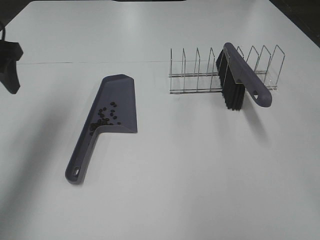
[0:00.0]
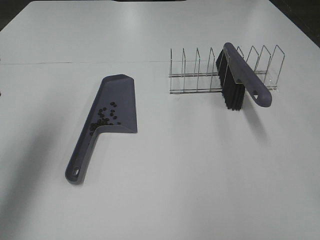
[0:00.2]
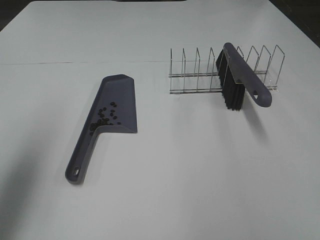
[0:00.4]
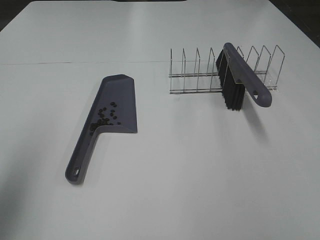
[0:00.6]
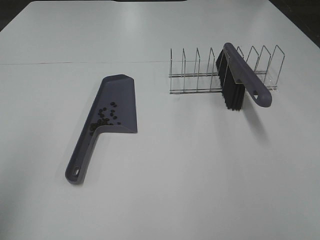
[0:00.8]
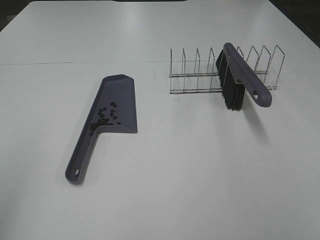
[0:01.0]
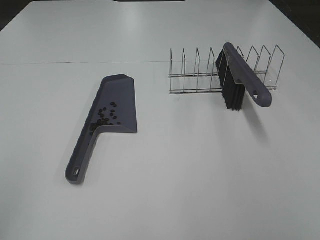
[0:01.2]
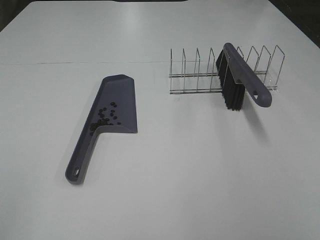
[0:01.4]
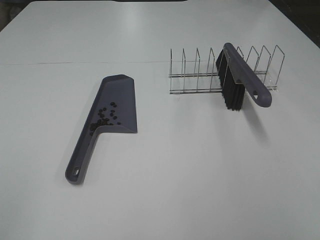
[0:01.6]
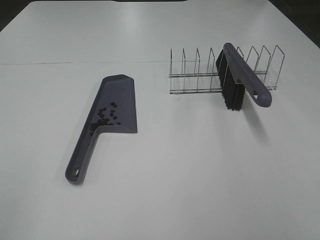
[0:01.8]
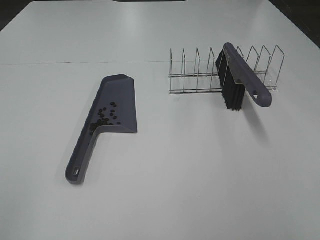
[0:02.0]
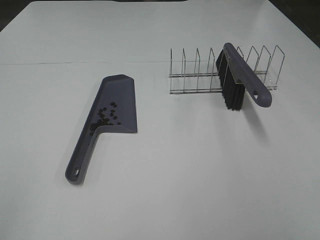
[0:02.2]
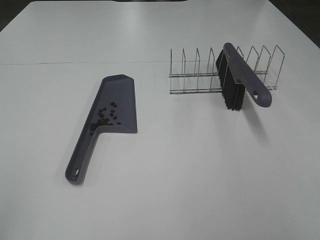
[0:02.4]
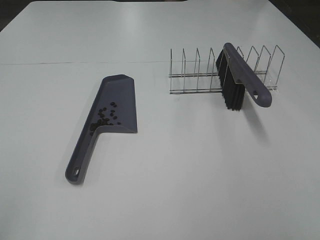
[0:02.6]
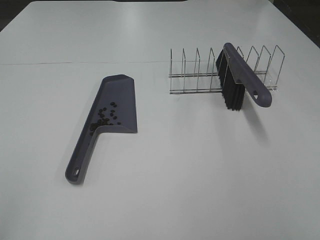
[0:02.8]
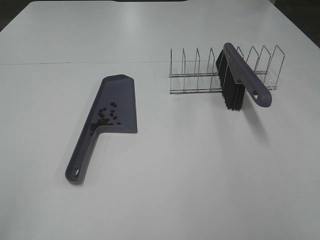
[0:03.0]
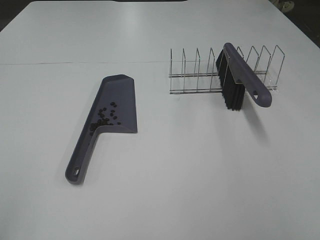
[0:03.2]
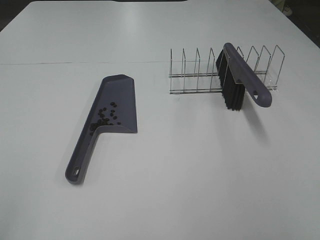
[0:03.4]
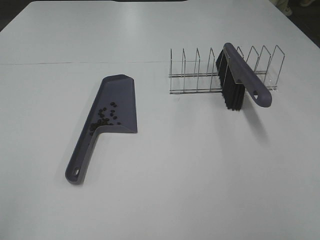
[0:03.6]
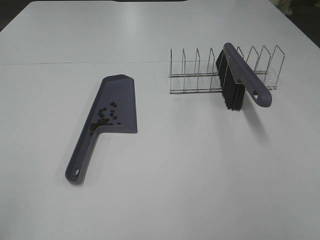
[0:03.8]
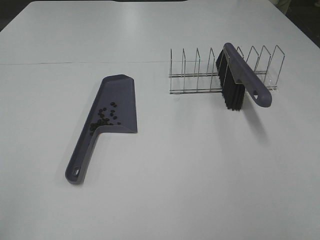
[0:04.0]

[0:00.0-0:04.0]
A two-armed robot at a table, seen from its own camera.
Task of the whole recording: Sweep Coffee Bean.
0:00.0 to 0:01.4: The left gripper is displaced backward by some 35 cm.
0:02.6 to 0:04.0: Both grippers stay about where they are.

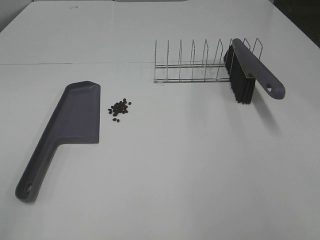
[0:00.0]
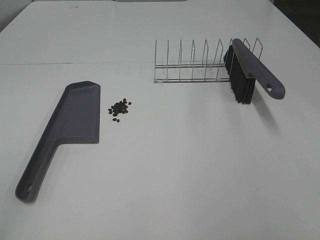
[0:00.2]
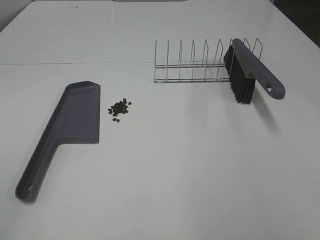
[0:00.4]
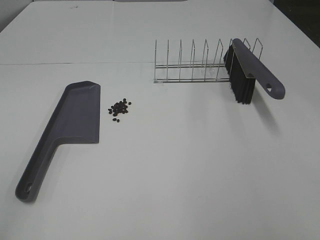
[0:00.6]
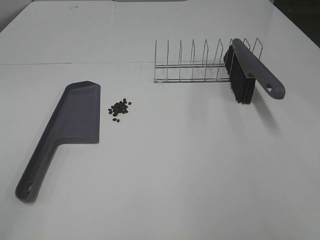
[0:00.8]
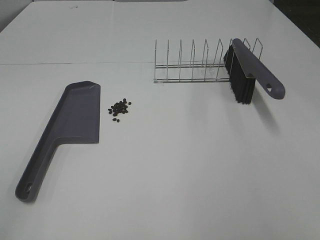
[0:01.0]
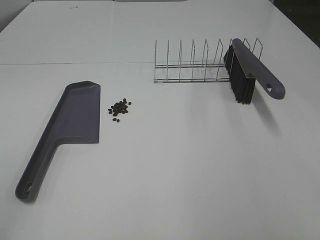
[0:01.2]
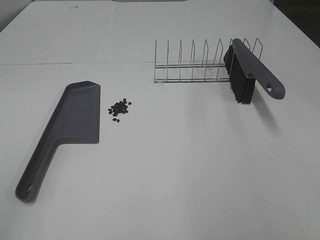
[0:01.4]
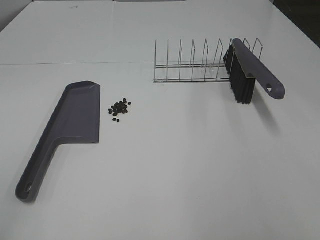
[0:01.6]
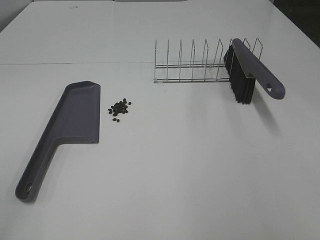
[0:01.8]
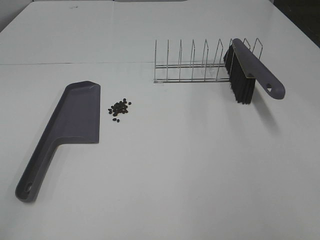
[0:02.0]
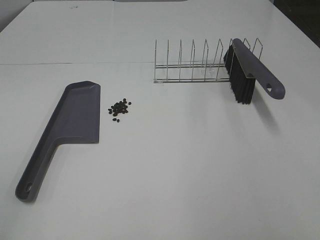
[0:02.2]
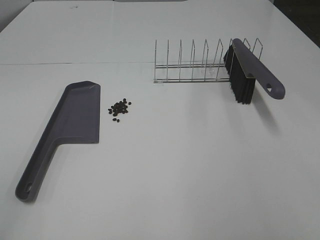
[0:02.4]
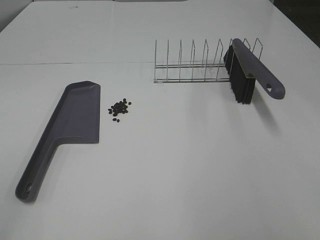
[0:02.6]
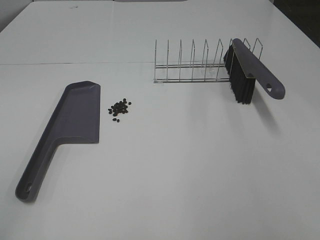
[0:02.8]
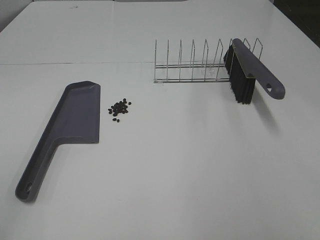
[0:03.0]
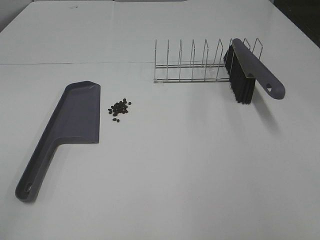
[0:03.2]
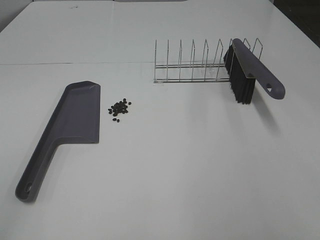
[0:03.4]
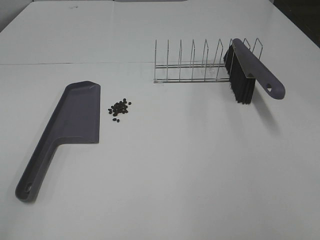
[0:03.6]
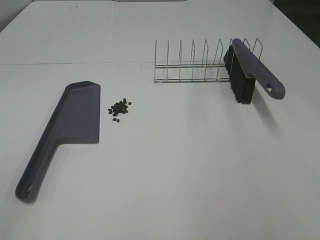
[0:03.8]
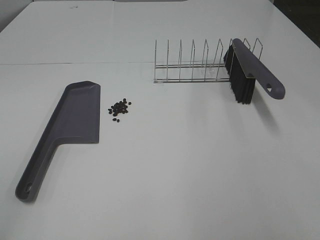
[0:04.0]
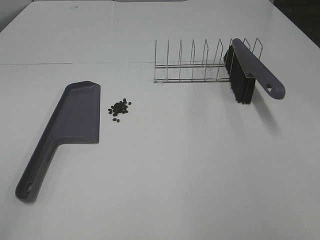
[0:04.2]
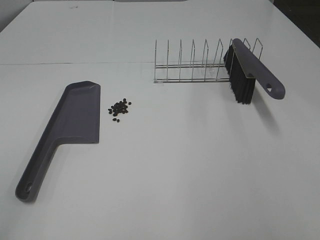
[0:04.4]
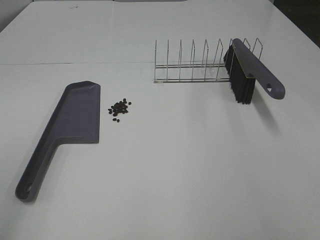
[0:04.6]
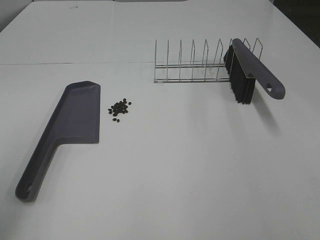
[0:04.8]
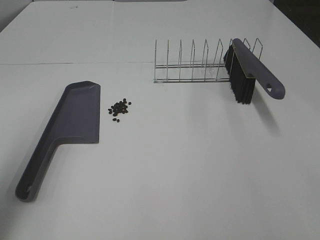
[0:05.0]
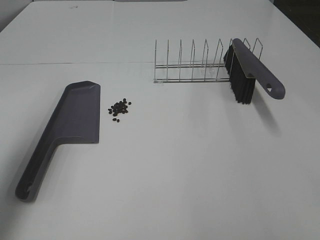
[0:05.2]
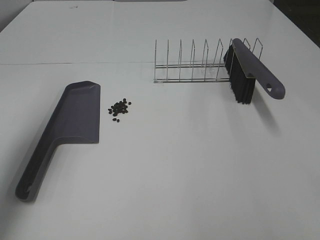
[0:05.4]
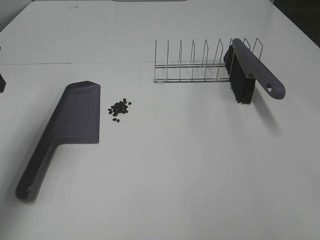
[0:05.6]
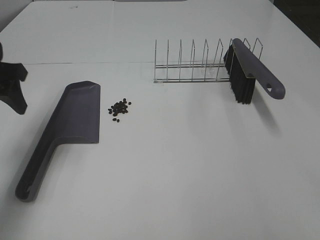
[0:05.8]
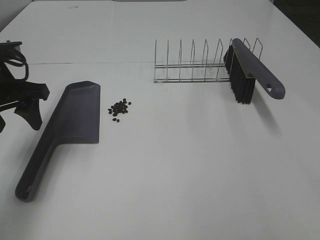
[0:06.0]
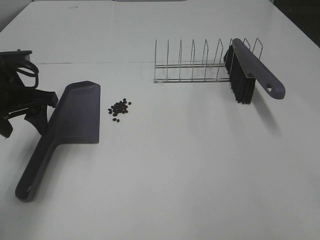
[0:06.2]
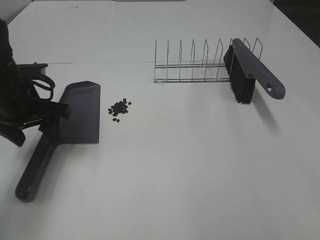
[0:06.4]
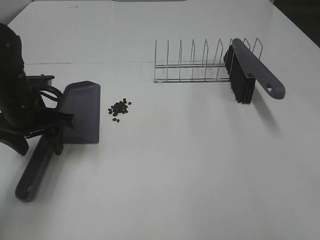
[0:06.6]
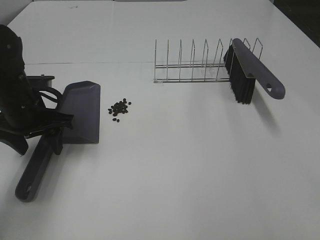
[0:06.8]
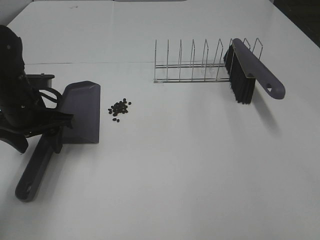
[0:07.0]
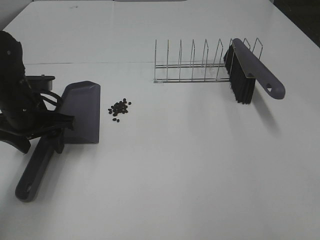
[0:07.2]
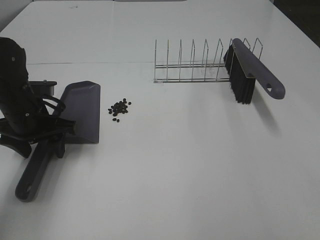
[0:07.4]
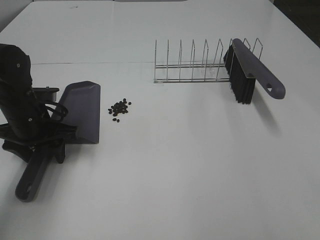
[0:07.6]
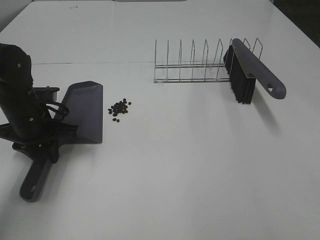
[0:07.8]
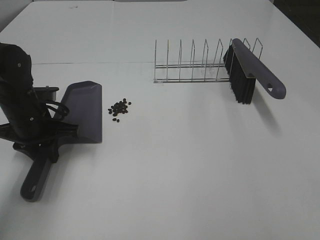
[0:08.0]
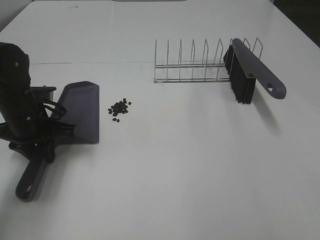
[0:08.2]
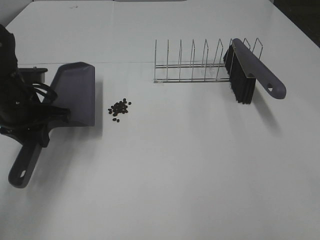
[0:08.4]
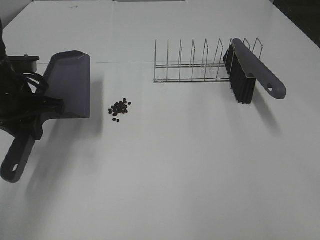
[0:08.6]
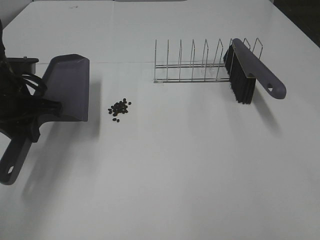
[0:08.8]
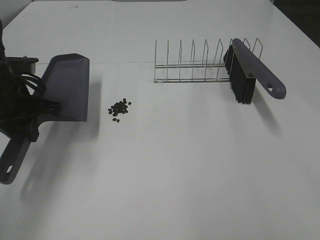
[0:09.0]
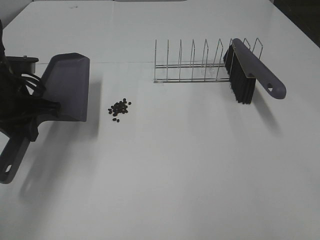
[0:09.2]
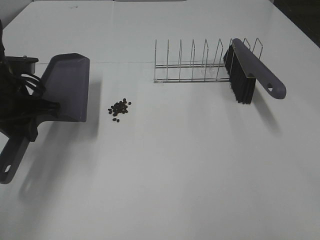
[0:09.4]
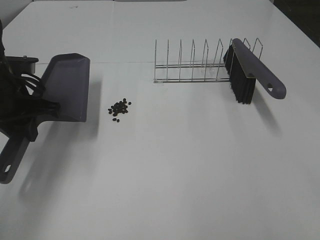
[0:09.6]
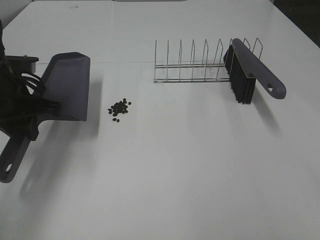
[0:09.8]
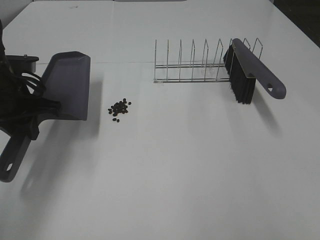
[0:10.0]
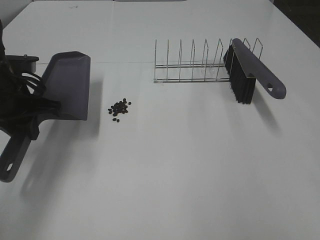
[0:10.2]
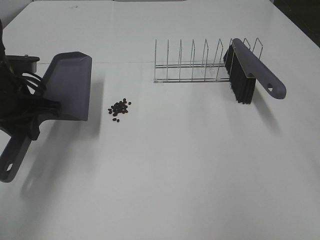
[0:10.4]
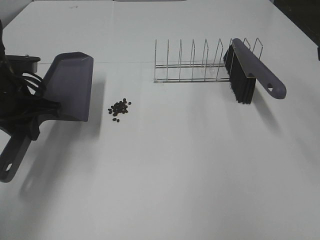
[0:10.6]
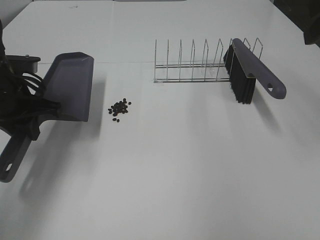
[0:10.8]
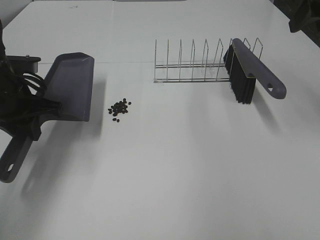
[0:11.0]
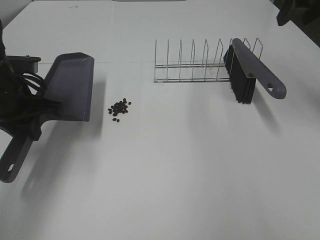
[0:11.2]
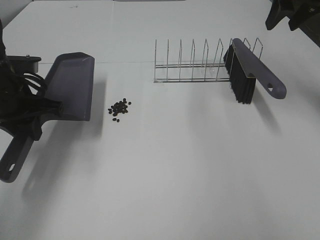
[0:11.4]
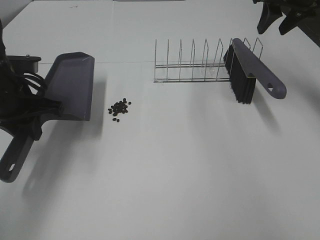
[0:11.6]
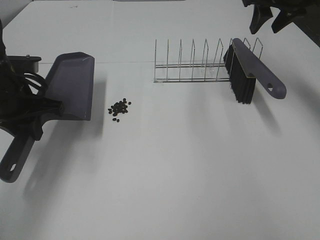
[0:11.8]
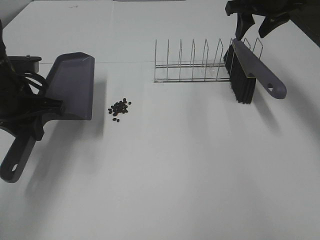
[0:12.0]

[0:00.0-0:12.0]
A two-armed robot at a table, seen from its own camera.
Task of the whole recording: Sweep Coffee Bean.
Step, 0:00.0 to 0:07.8: Left hand: grab the dustpan.
0:00.0 to 0:03.0: Both grippers stay about where they are.
0:04.4 to 0:06.0: The left gripper moves forward, some 30 cm.
0:06.0 to 0:07.6: The left gripper goes approximately 10 cm downward.
0:07.6 to 0:09.0: The left gripper moves upward, approximately 5 cm, and closes its fingers.
0:10.4 to 0:12.0: The right gripper goes some 30 cm forward.

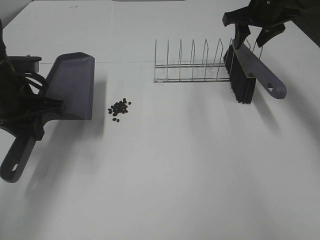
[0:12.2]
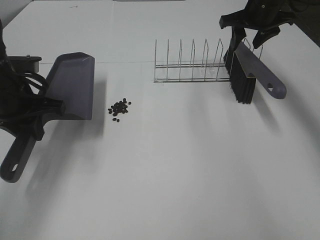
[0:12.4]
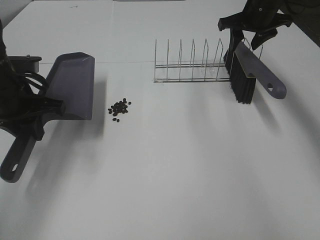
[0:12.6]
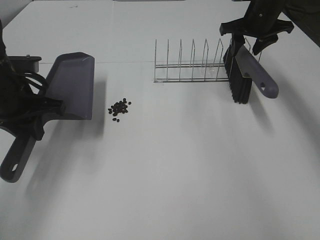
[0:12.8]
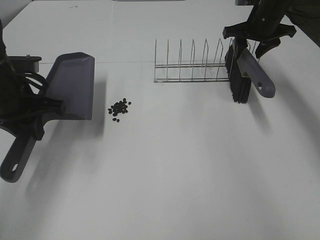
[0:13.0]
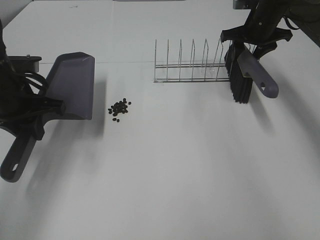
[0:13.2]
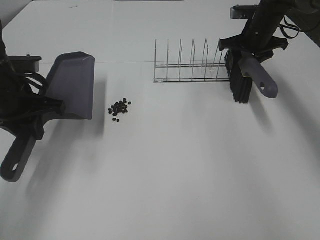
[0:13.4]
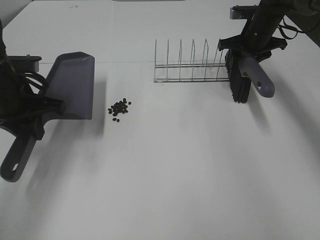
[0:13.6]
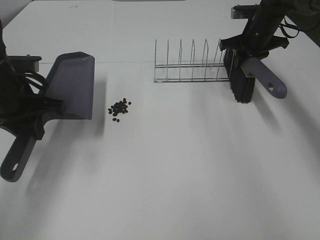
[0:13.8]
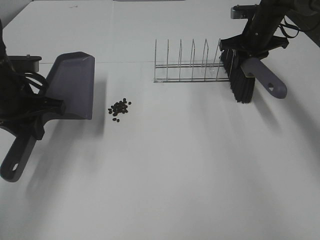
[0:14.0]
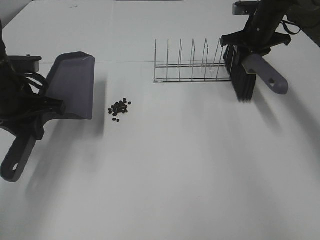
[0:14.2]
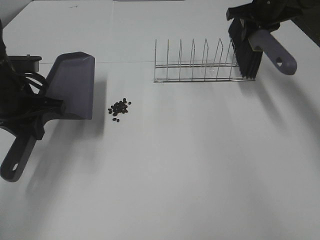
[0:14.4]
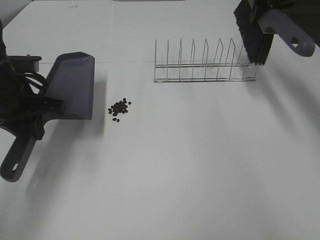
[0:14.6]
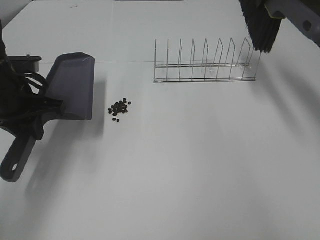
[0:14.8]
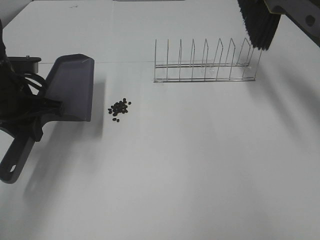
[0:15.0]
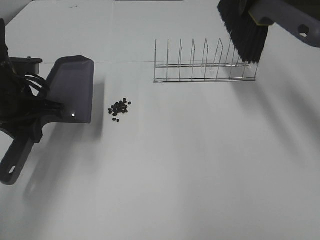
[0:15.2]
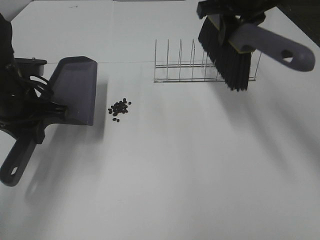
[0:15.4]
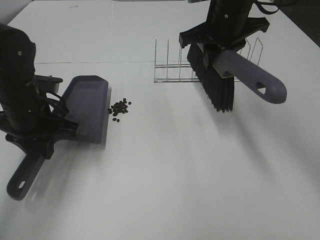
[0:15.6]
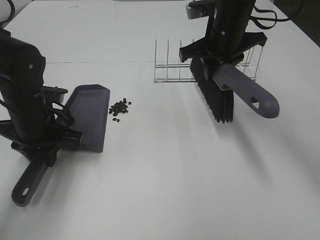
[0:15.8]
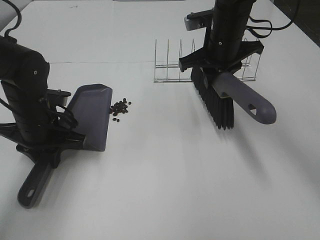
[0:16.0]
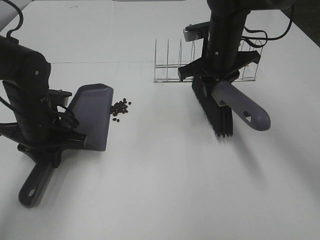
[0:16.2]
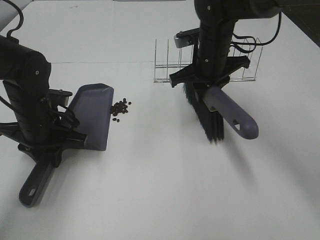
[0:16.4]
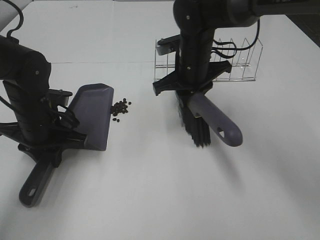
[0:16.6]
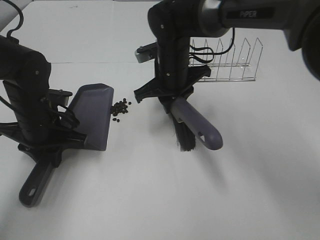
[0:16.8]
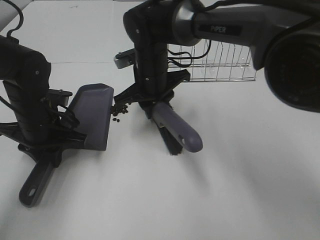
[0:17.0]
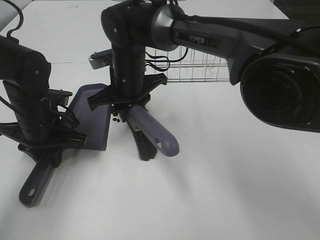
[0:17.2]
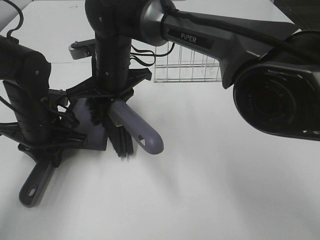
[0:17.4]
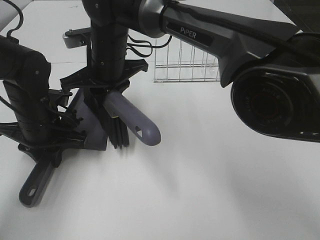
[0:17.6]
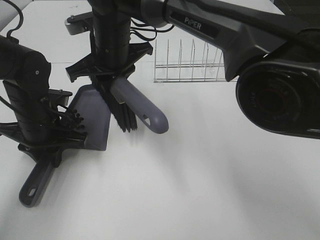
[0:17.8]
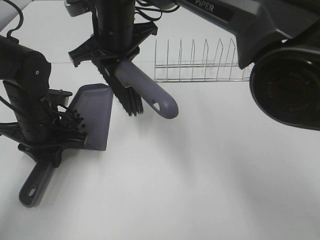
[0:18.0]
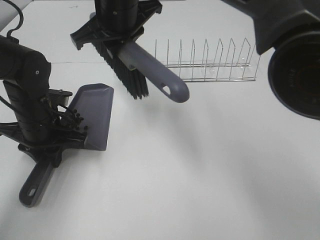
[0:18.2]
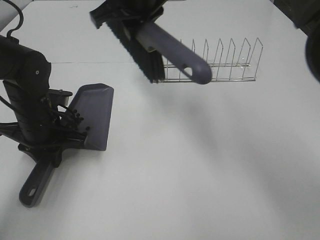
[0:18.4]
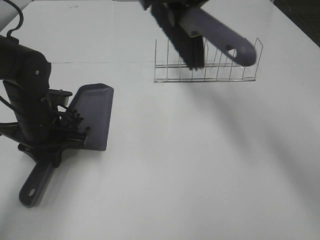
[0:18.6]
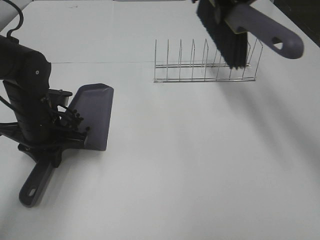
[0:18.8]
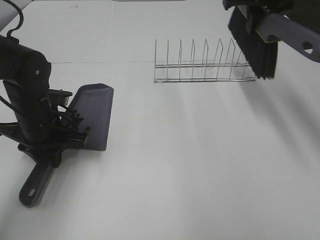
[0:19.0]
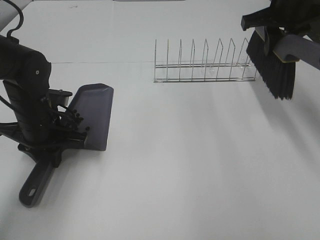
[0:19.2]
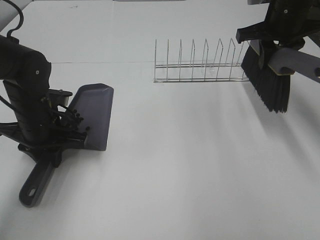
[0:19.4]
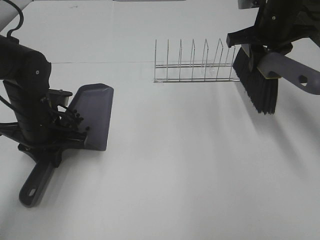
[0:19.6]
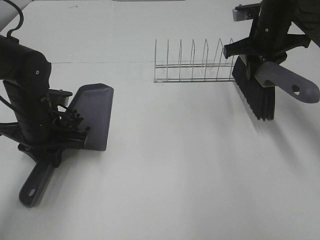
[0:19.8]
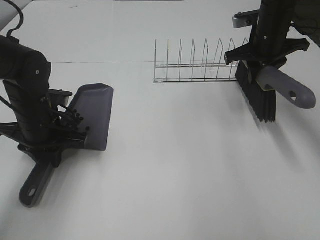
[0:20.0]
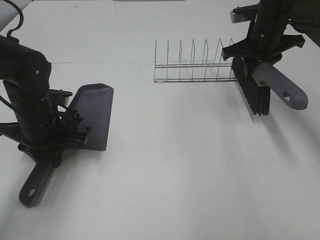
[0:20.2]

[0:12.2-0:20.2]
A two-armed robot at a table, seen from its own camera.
Task of the whole recording: Sweep Coffee Bean.
Step, 0:14.0 to 0:17.8: Right hand:sweep the coffee beans into the dustpan.
0:12.2 to 0:13.8: The right gripper moves downward, about 10 cm, and closes its fingers.
0:13.8 to 0:15.4: The right gripper moves upward, backward and to the left, about 20 cm.
0:15.4 to 0:17.0: The right gripper shifts approximately 20 cm to the left and downward; the left gripper is displaced downward by about 5 cm.
0:17.0 to 0:18.6: The right gripper shifts roughly 20 cm upward and to the right.
0:18.6 to 0:20.2: The right gripper goes approximately 20 cm to the right and downward.
